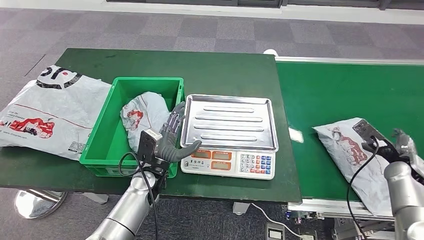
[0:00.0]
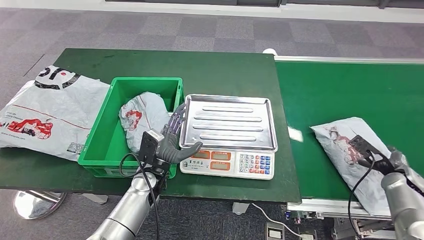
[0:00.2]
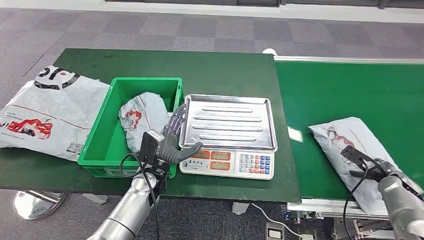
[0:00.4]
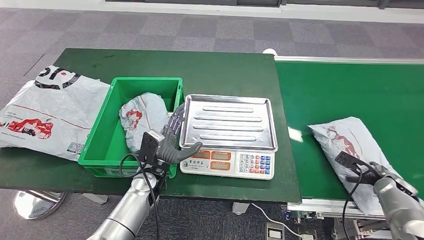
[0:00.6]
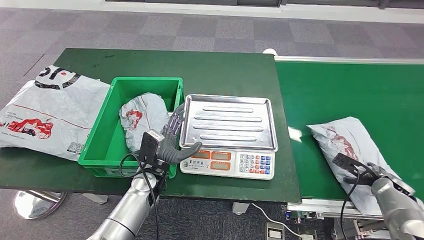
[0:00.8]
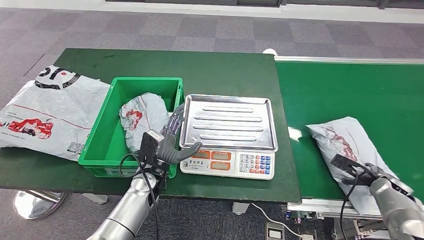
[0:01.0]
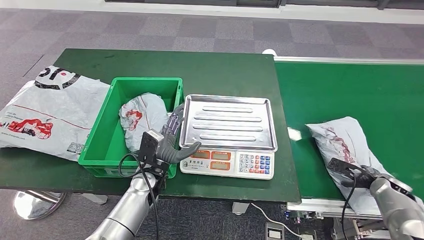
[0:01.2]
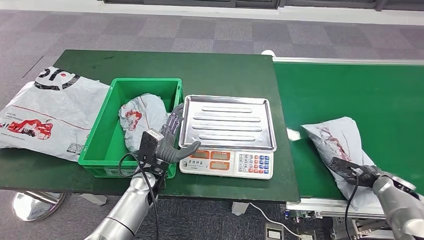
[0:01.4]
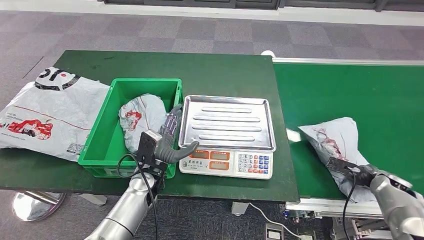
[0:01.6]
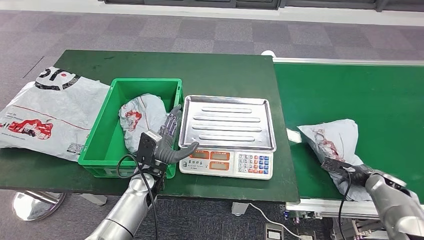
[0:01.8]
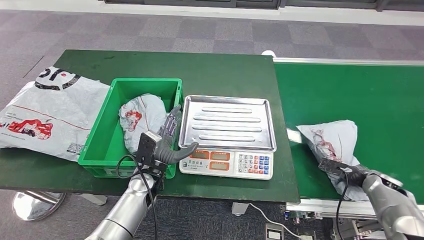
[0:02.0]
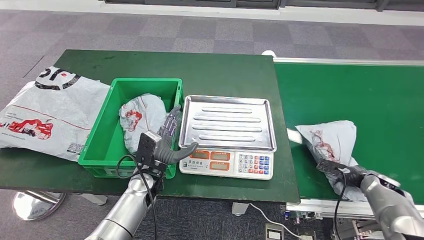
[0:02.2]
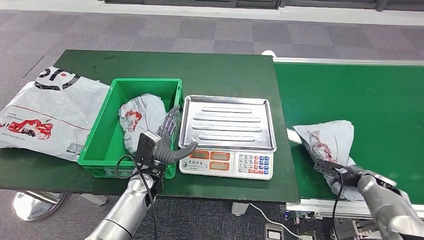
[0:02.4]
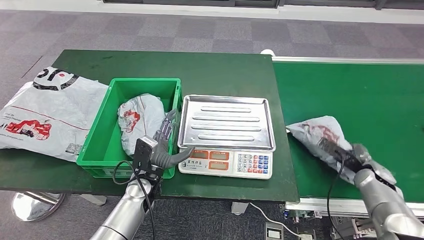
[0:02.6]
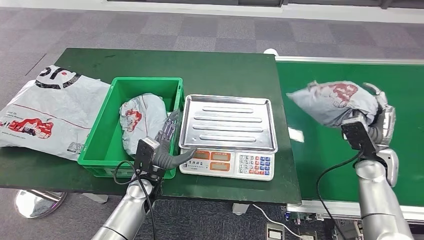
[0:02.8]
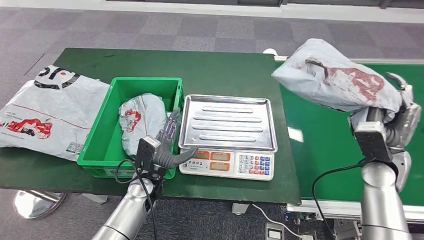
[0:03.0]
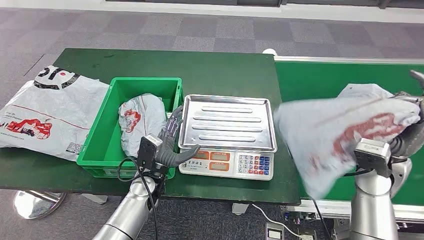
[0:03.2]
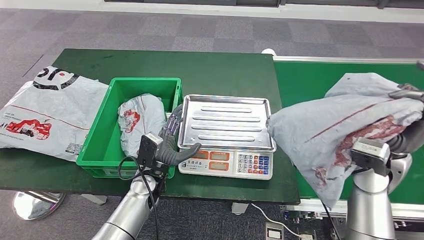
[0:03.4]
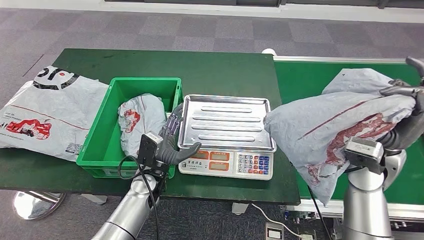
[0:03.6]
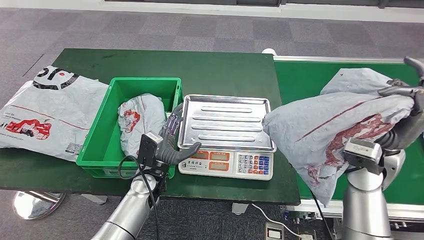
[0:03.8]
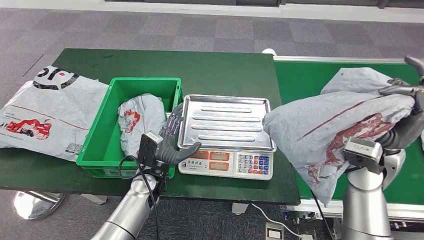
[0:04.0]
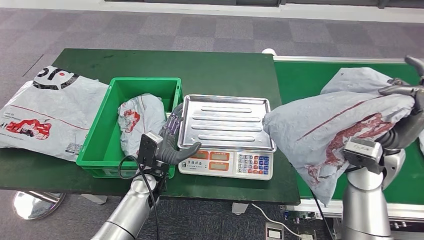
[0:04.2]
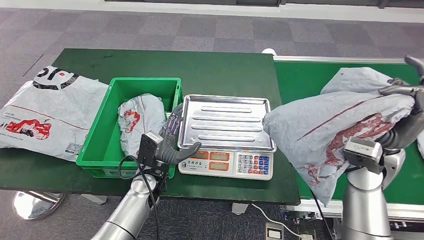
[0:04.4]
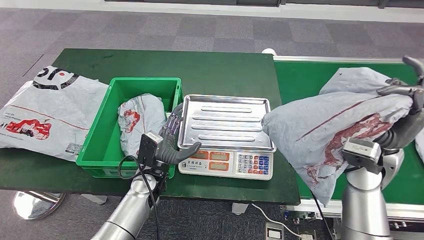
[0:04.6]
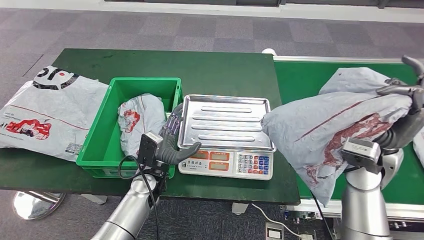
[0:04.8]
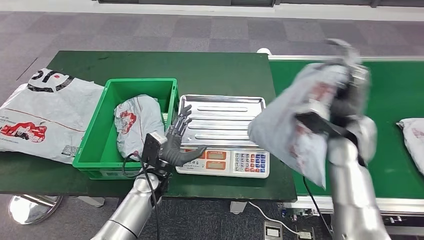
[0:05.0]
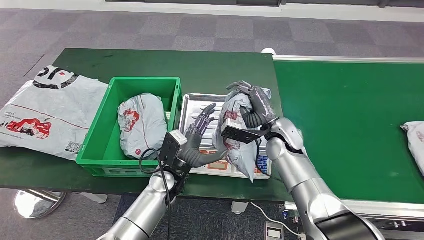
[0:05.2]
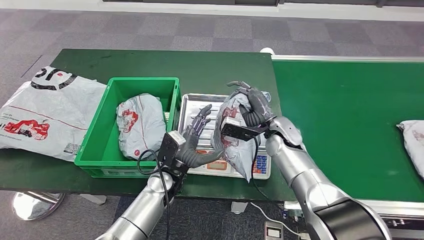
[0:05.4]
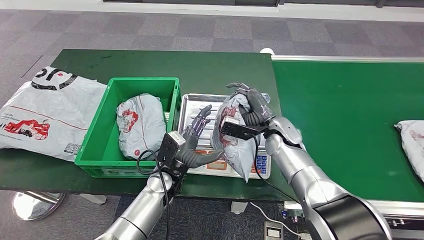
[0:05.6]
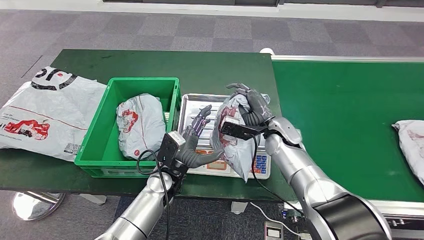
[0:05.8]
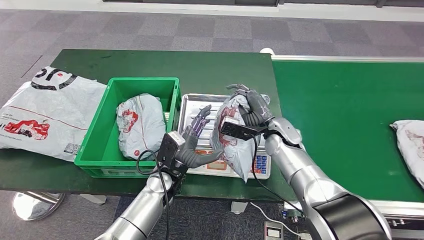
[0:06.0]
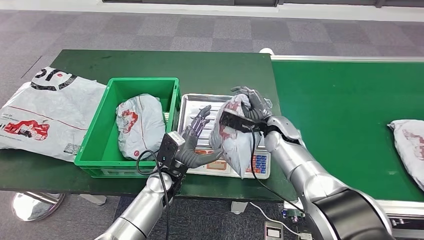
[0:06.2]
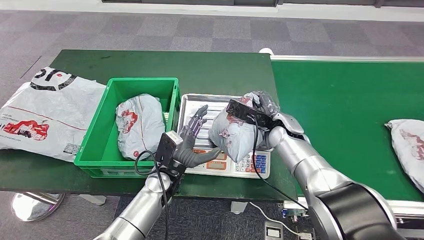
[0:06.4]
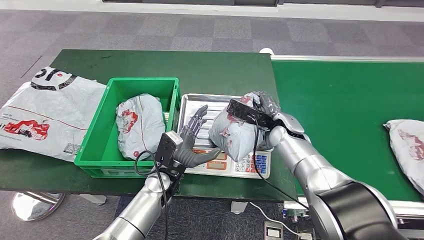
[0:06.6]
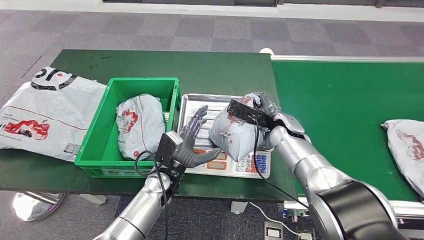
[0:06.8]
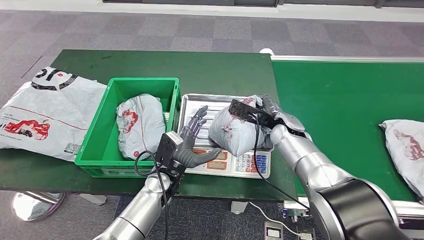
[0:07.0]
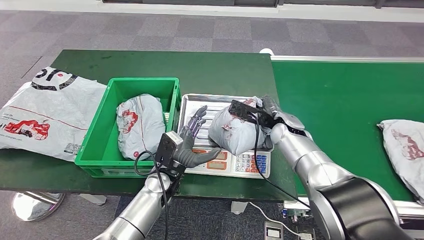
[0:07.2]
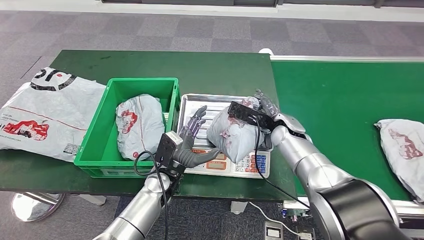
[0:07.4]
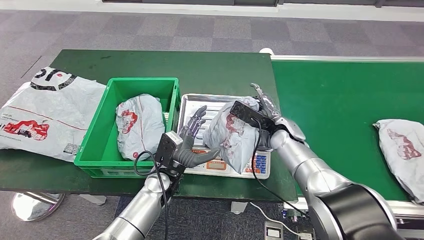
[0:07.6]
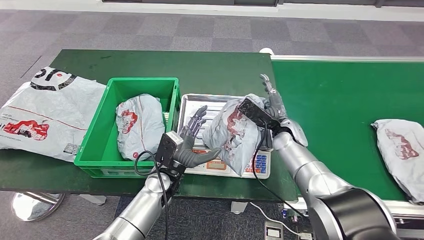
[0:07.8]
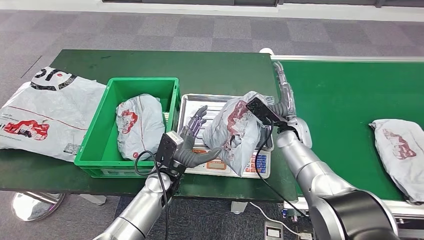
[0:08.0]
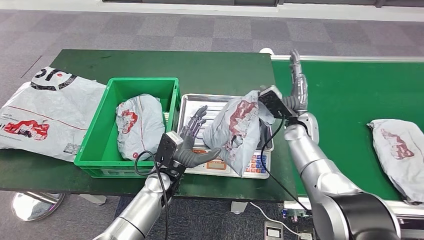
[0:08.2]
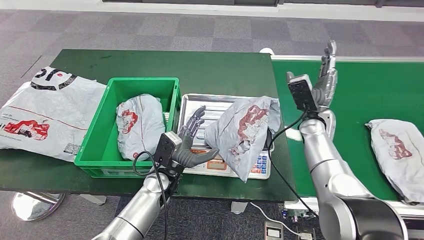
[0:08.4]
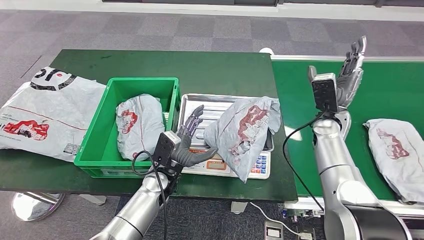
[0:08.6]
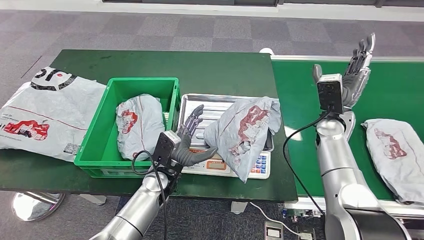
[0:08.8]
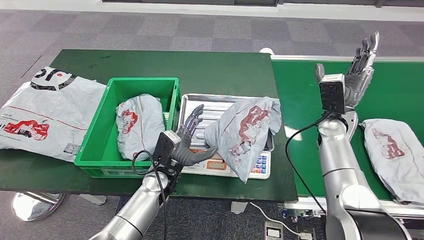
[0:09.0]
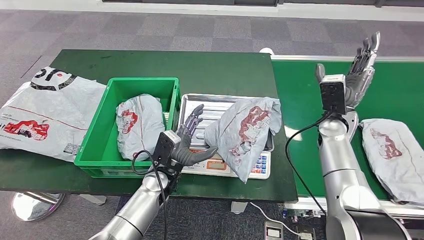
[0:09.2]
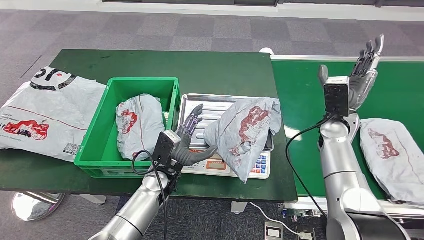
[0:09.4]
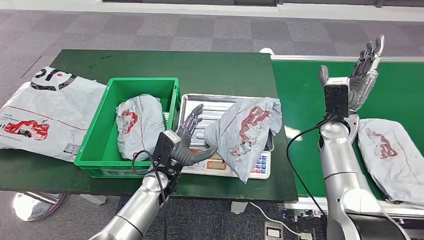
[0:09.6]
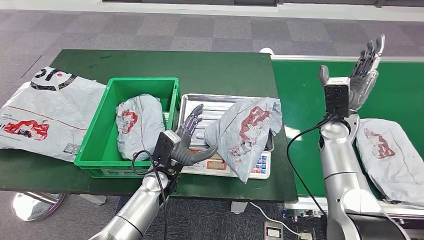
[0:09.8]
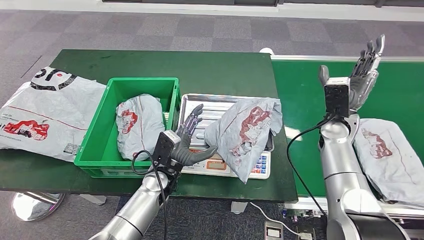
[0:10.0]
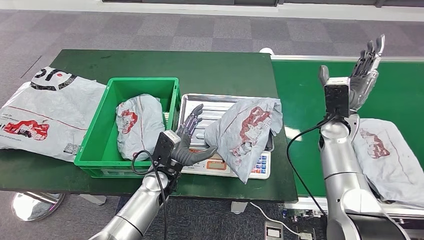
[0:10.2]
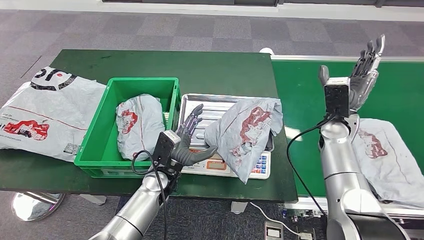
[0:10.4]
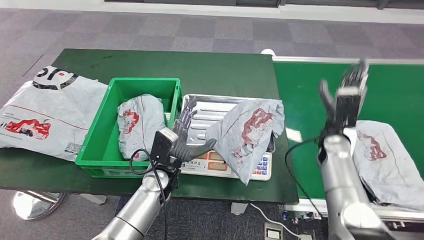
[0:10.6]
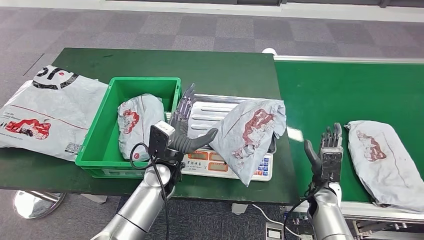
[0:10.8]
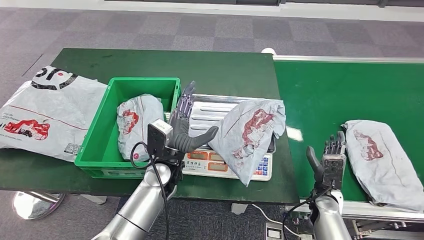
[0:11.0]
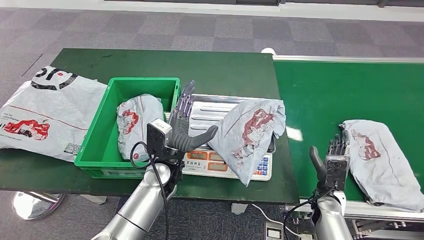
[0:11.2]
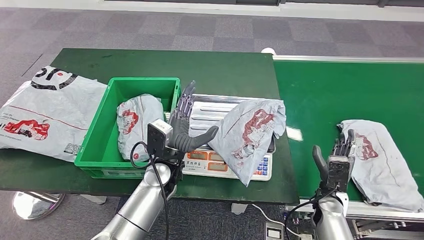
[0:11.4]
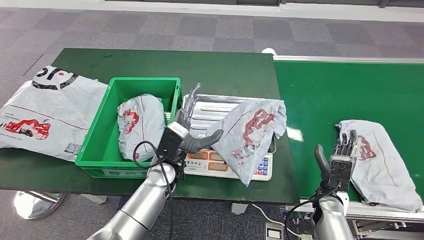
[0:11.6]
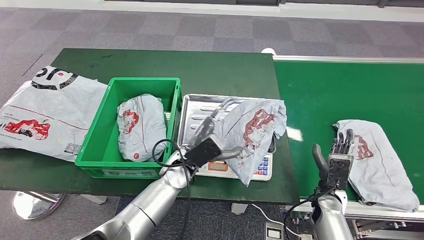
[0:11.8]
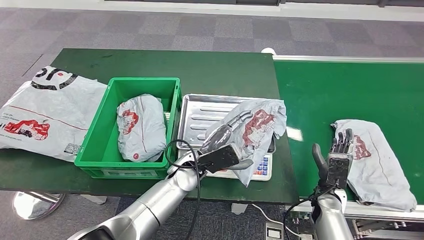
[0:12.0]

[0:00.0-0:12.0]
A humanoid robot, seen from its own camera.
Step, 0:00.6 to 0:03.0: Pick up the parcel from the conveyor belt.
Step, 0:03.2 to 0:08.4: Place the parcel onto the inbound machine.
0:00.0 to 0:01.6: The right hand goes approximately 10 cm downward.
0:09.0 to 0:10.4: Neither hand changes place.

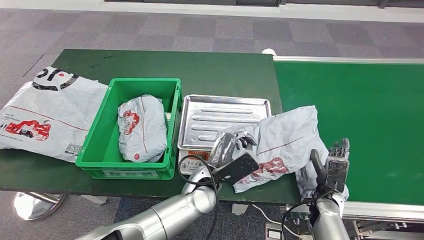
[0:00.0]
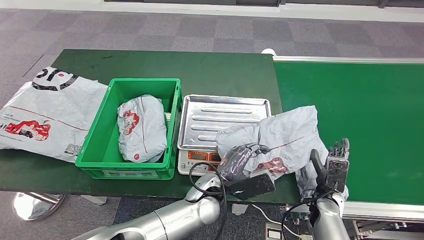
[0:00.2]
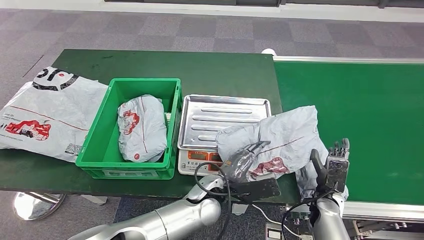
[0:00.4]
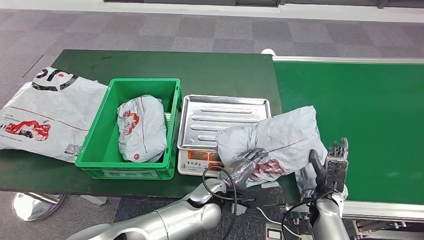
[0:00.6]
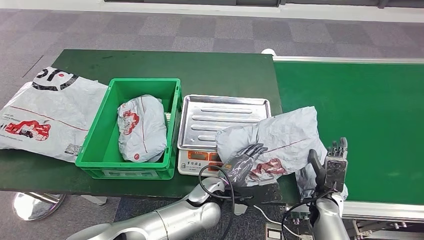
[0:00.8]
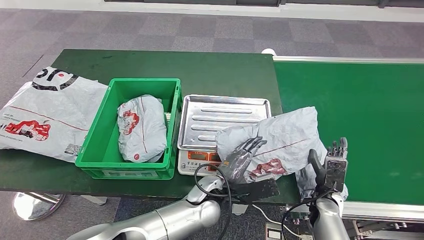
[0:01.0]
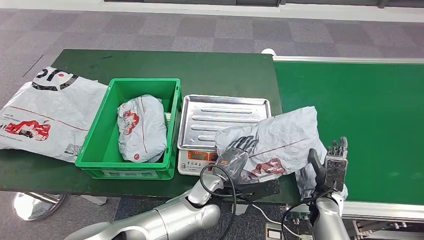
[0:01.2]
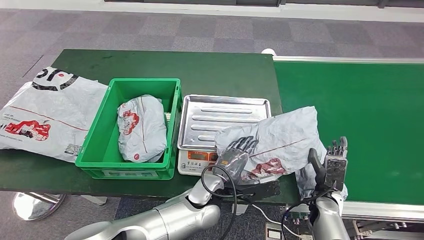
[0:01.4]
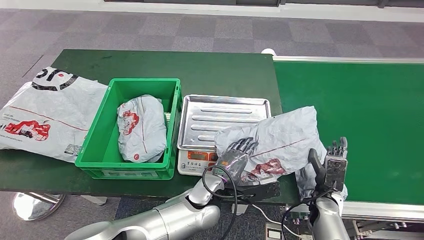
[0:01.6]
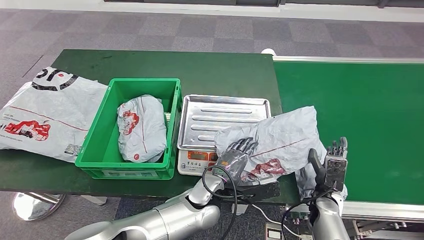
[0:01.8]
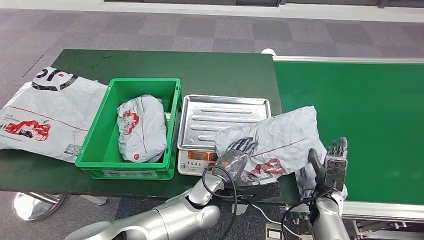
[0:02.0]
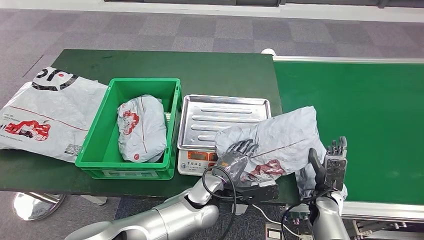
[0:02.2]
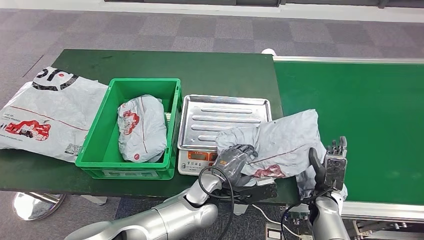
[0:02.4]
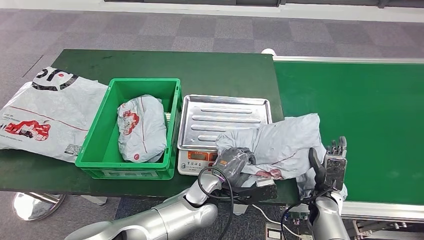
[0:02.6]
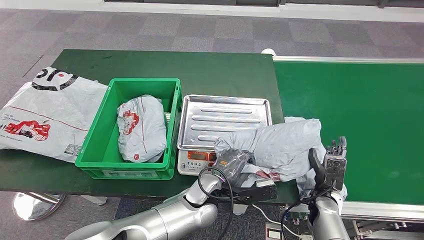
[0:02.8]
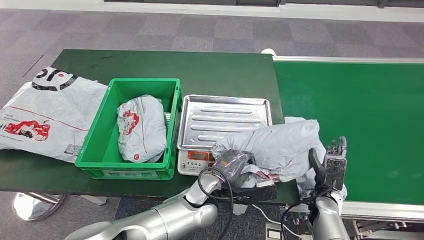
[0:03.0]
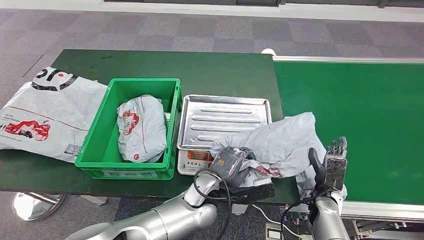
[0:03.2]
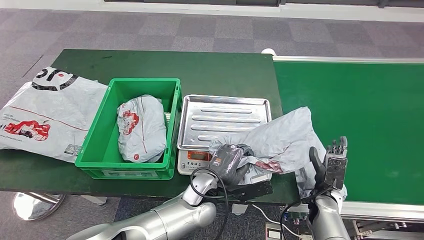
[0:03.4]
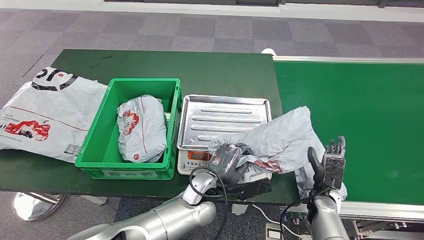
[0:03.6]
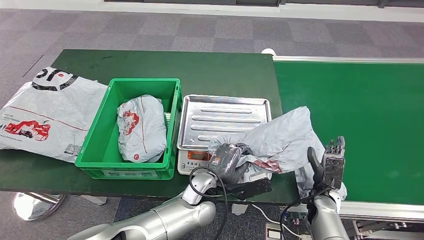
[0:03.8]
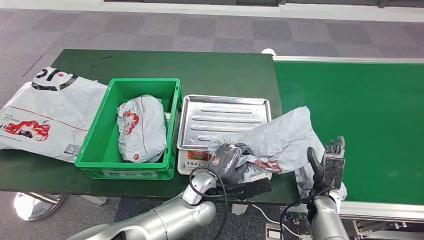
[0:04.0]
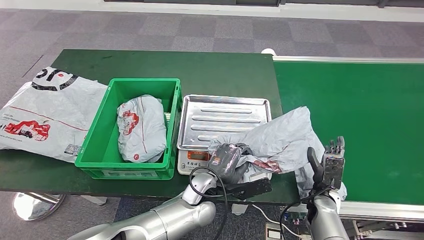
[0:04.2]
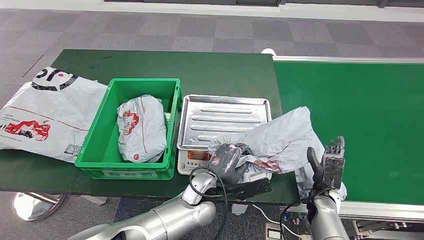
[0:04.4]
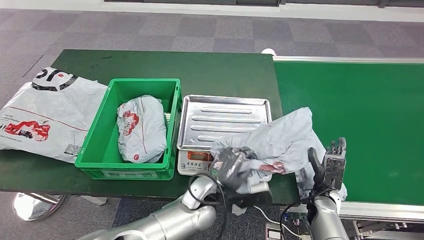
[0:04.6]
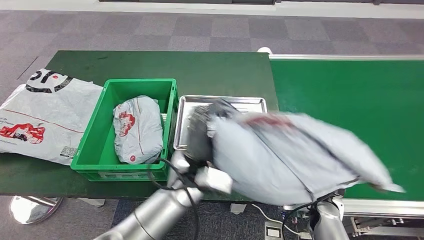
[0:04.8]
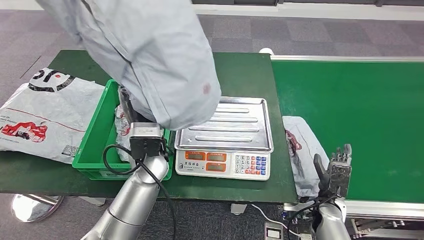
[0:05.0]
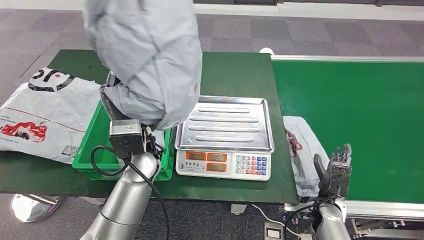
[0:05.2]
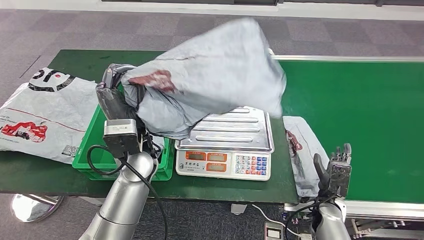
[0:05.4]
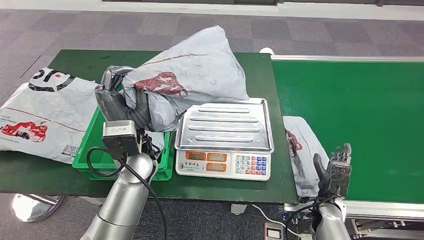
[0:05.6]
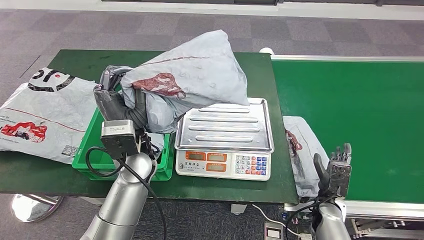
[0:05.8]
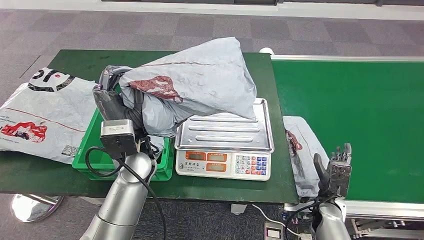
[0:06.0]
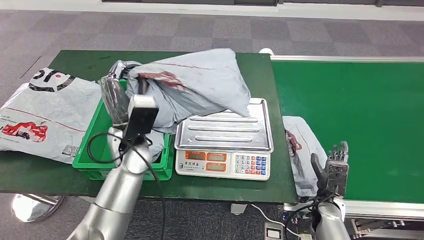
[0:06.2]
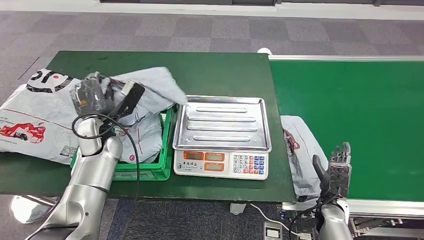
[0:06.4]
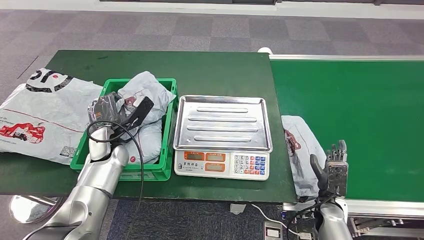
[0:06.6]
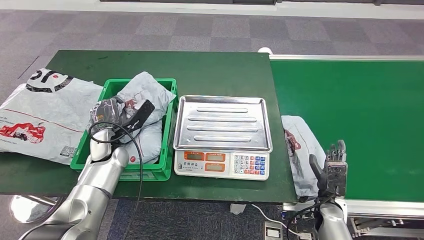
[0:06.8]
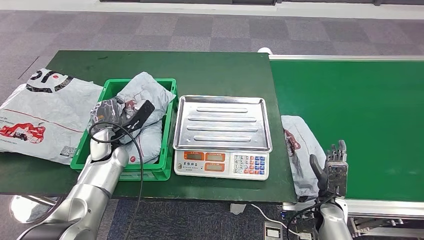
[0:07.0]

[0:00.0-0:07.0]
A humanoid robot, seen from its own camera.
Step, 0:00.0 to 0:05.8: Pick up the parcel from the inbound machine.
0:01.4 to 0:02.8: Both hands stay put.
0:02.8 to 0:04.2: The hands make only small movements.
